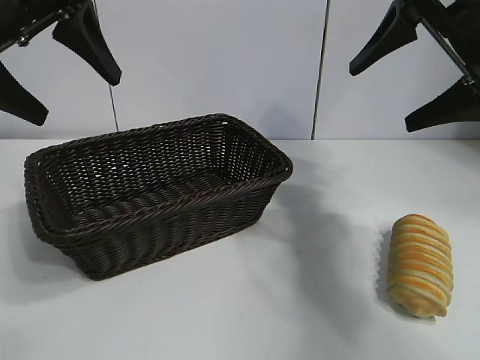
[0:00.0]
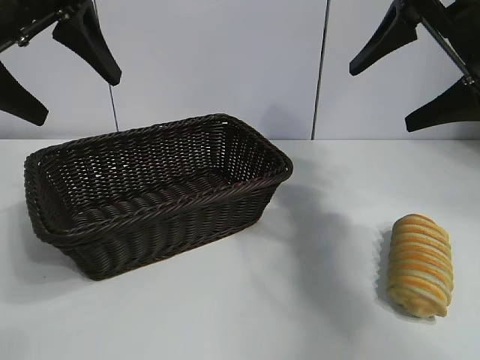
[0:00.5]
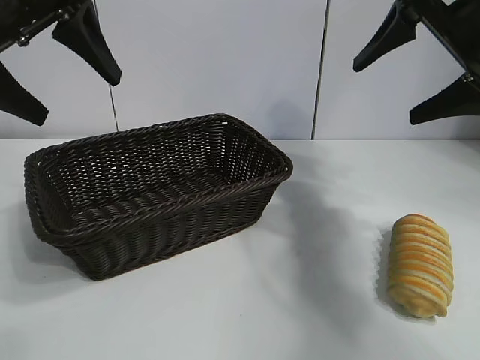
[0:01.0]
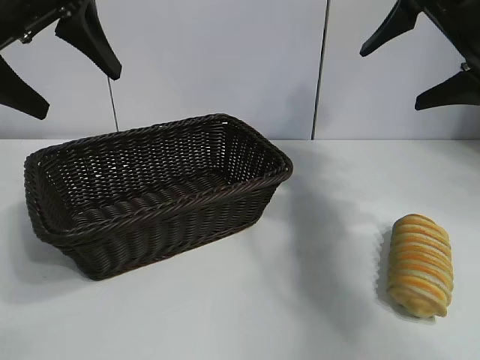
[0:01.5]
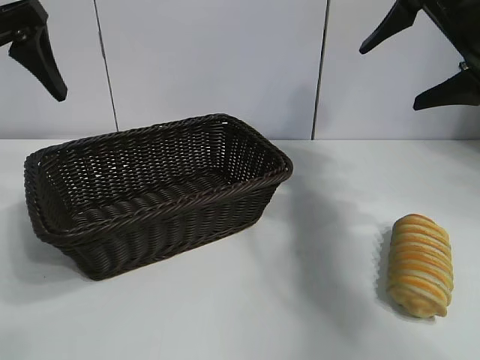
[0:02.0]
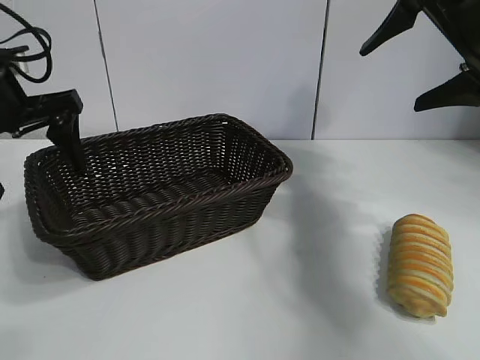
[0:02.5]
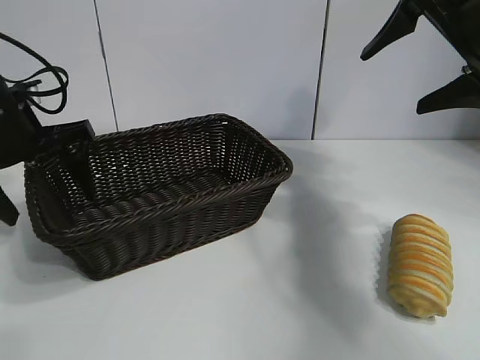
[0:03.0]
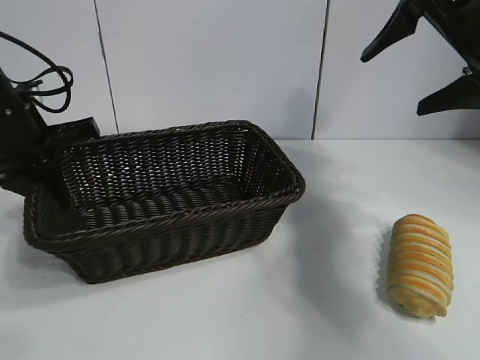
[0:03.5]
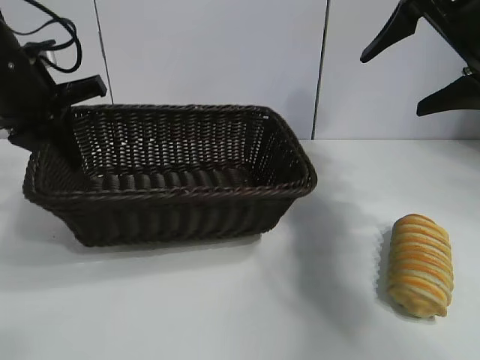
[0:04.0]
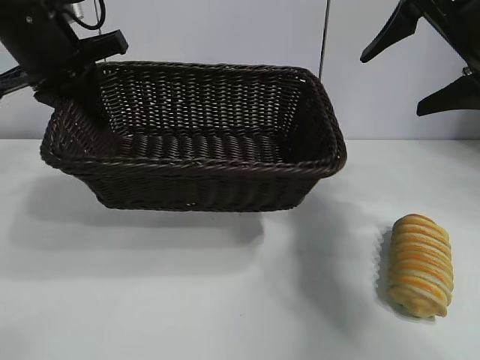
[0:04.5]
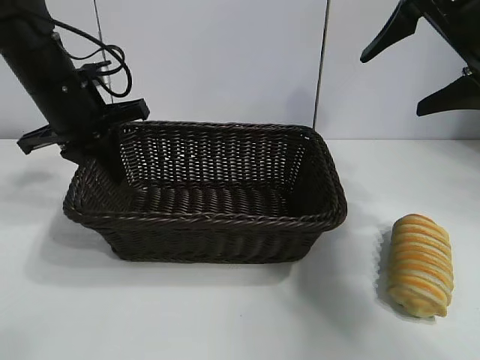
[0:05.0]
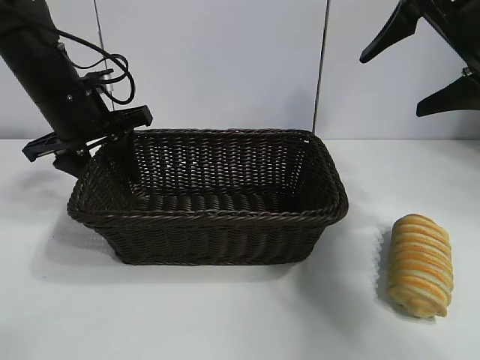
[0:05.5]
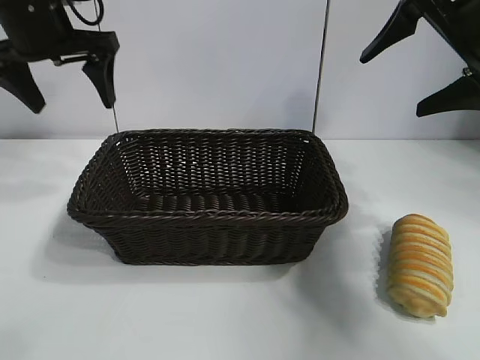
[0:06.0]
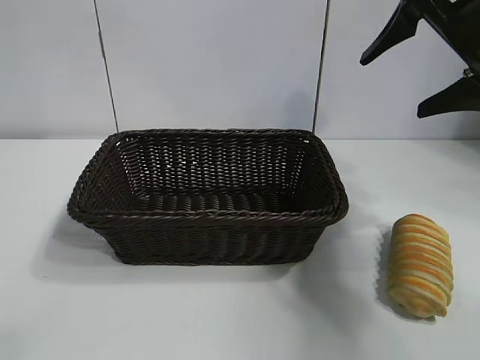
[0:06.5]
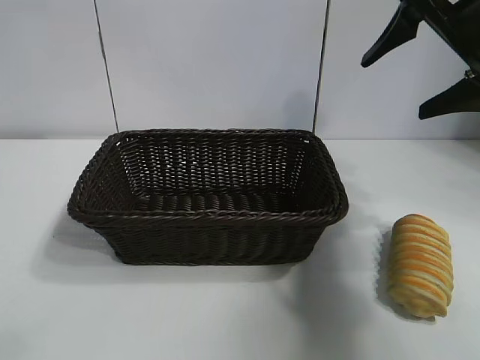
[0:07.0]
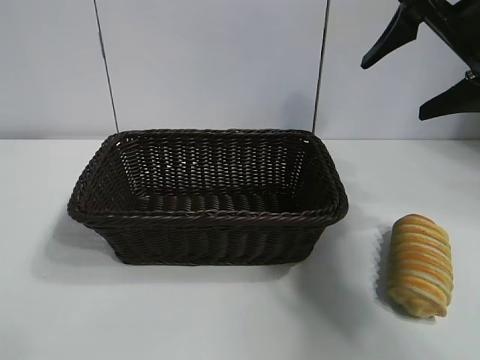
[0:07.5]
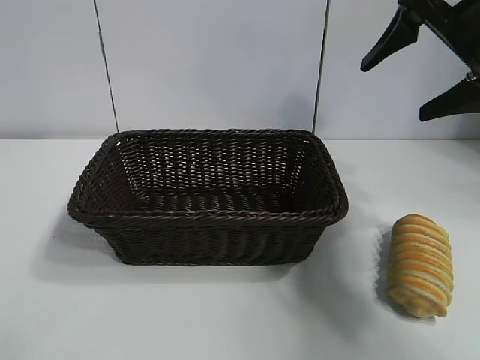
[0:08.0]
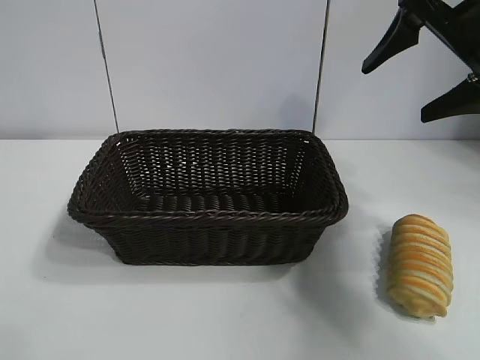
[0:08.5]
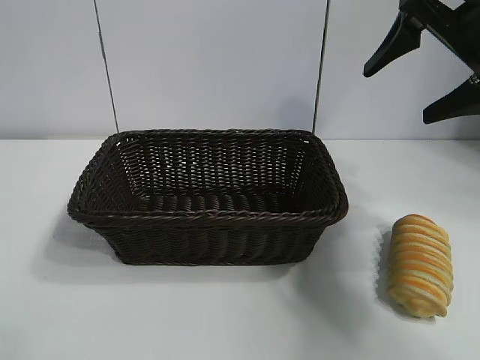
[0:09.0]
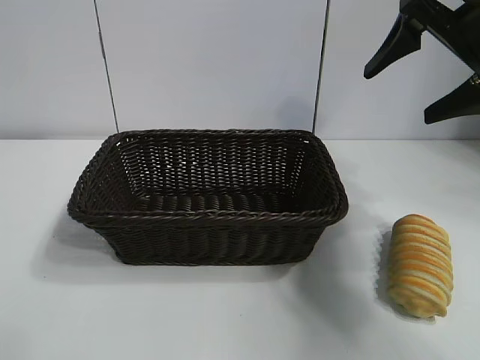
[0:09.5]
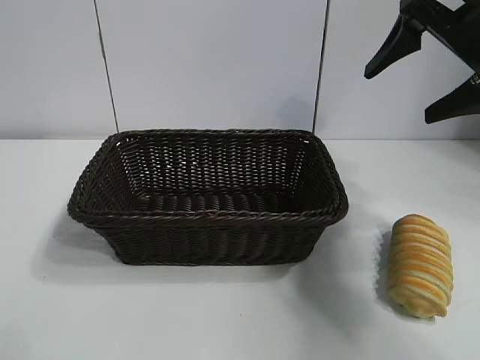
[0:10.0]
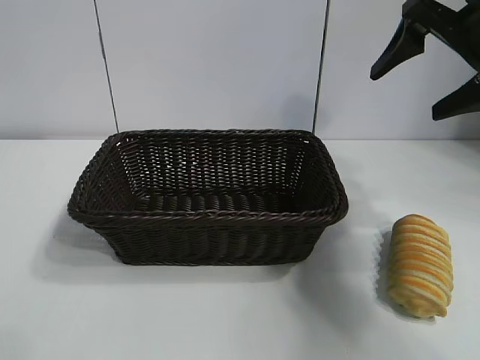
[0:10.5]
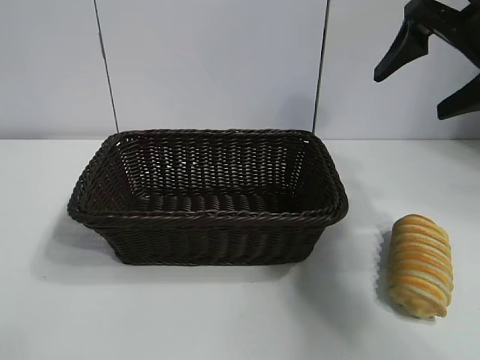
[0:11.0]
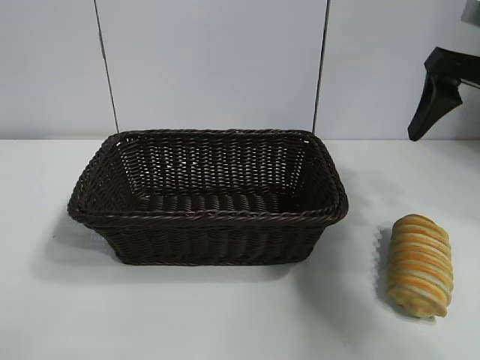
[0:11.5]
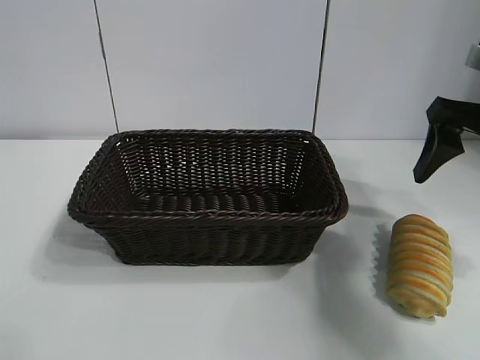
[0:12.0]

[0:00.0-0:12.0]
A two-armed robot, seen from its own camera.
Task of the whole recording: pick up the long bread and put it into the basket.
Step, 0:01.5 to 0:03.0: Grasp the basket with the left gripper.
Step, 0:03.5 to 0:05.5: Place the basket in the center of the table with the left gripper.

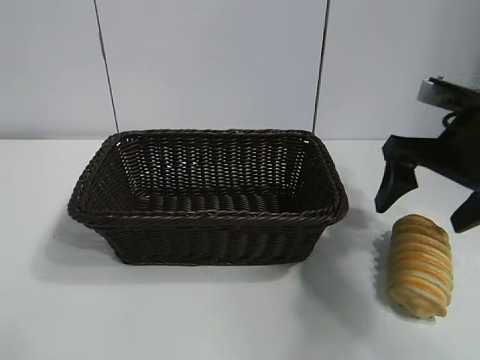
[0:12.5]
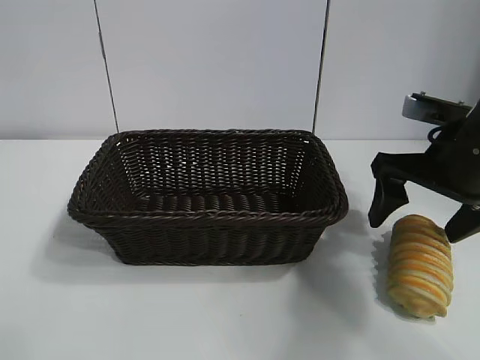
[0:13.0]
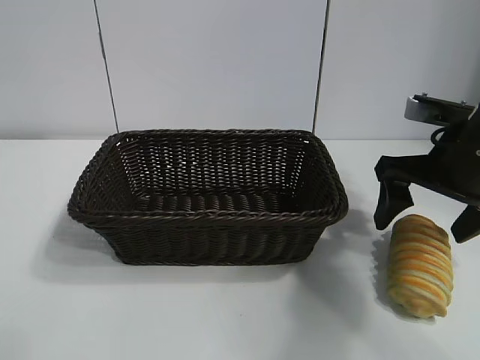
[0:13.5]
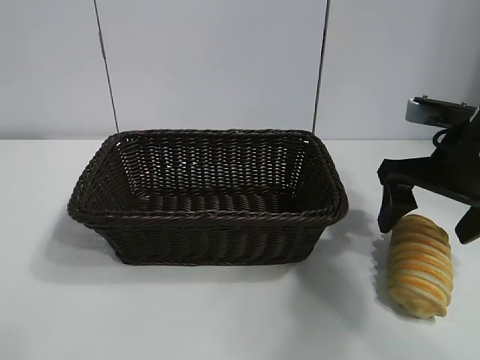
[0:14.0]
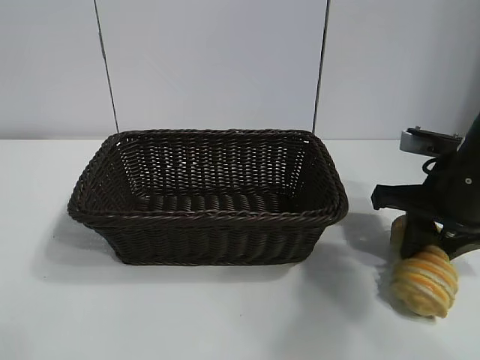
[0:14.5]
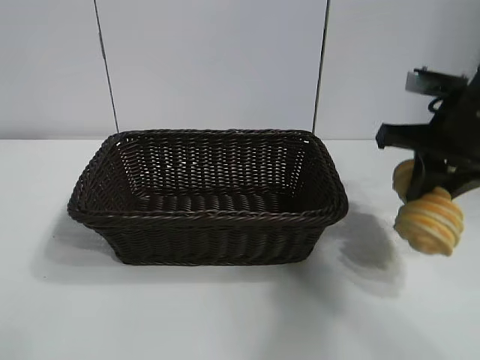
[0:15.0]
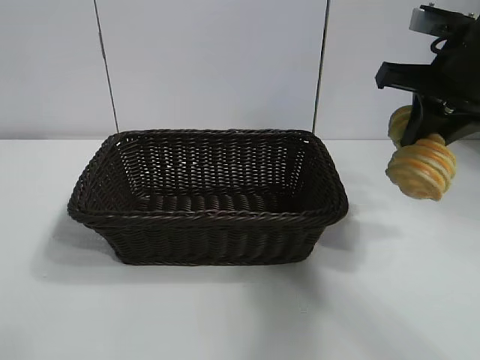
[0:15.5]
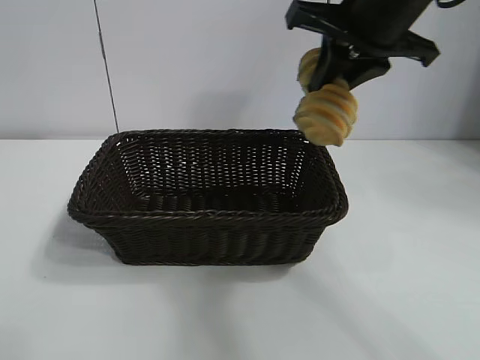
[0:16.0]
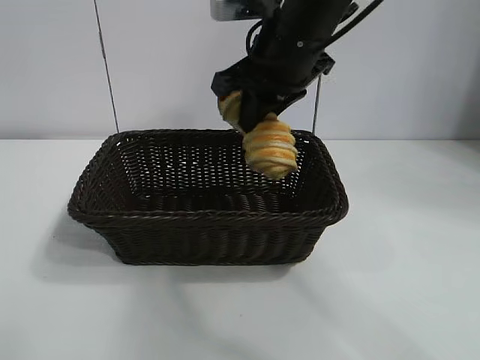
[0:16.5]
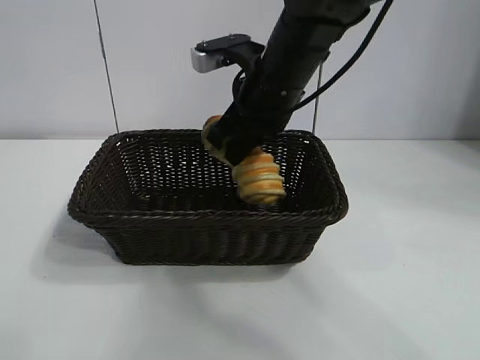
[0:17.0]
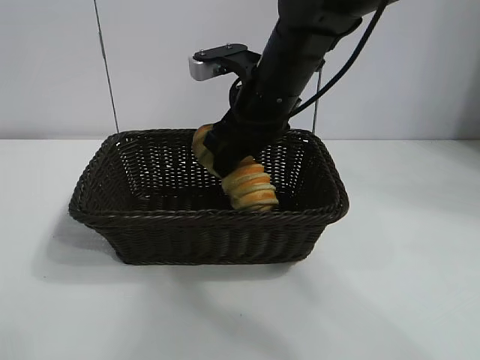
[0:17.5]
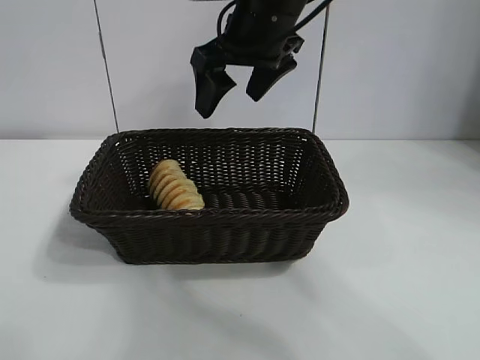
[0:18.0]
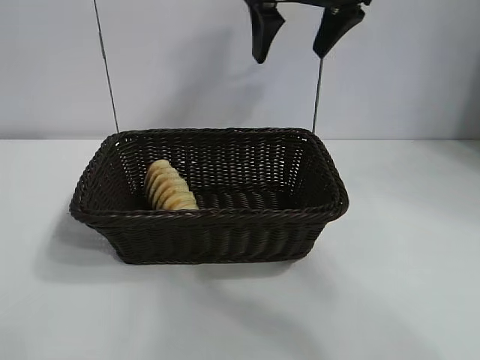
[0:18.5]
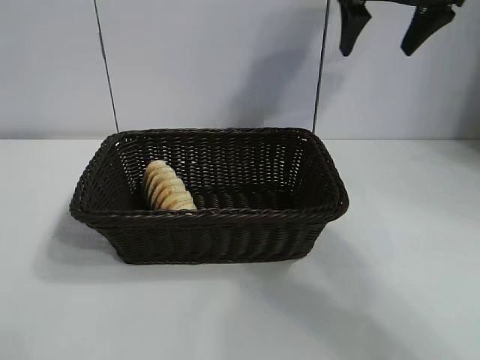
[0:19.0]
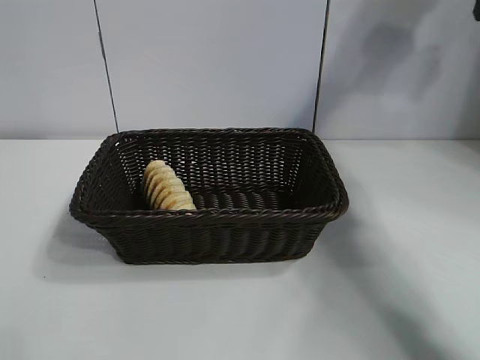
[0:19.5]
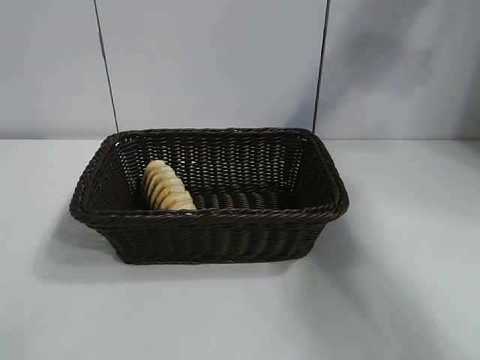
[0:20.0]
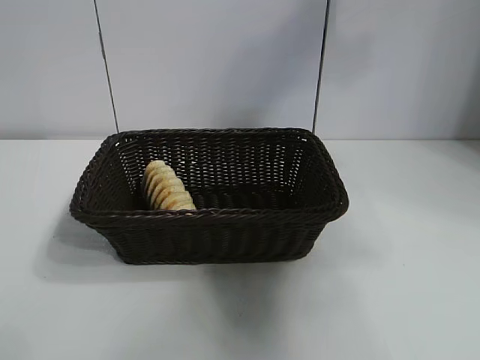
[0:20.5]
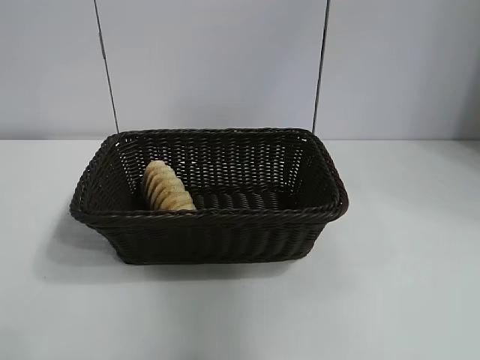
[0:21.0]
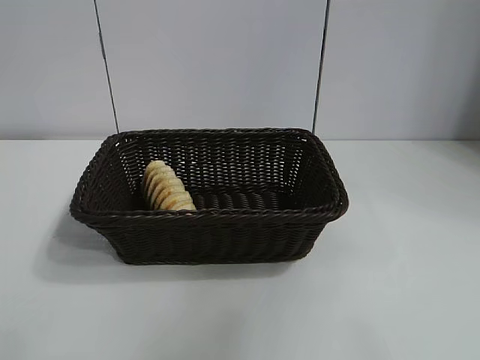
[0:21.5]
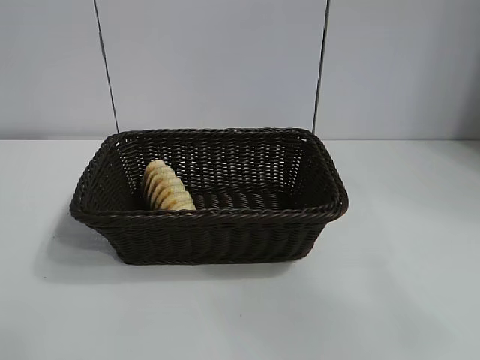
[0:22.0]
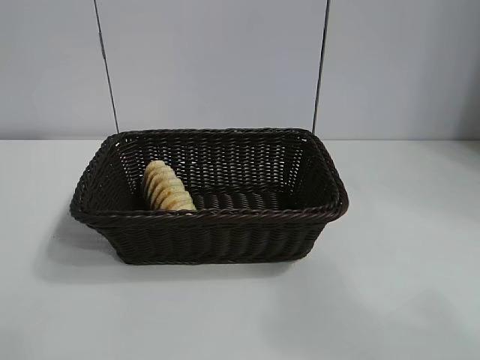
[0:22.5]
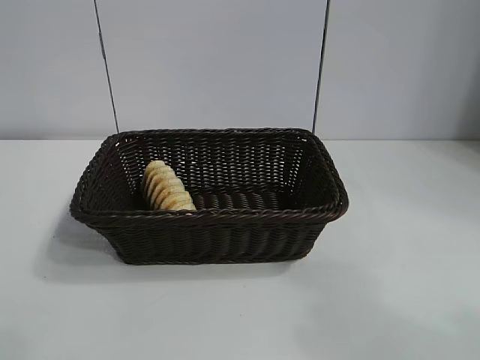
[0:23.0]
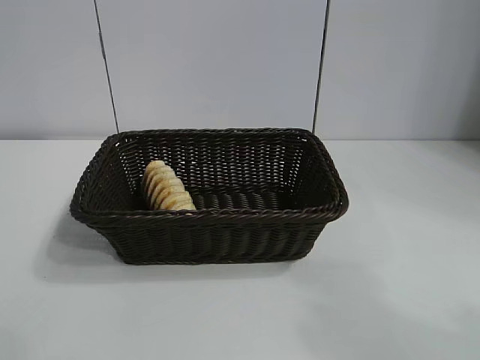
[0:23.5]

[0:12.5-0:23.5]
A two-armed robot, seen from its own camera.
Task of the whole recording: pick up the long bread and put it into the basket.
Step, 0:12.5 to 0:14.5: Grasp the long bread with right gripper.
Step, 0:15.0 to 0:17.5: Place the long bread in the basket with right gripper.
